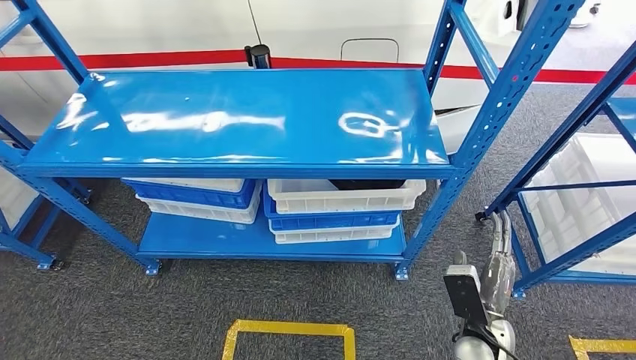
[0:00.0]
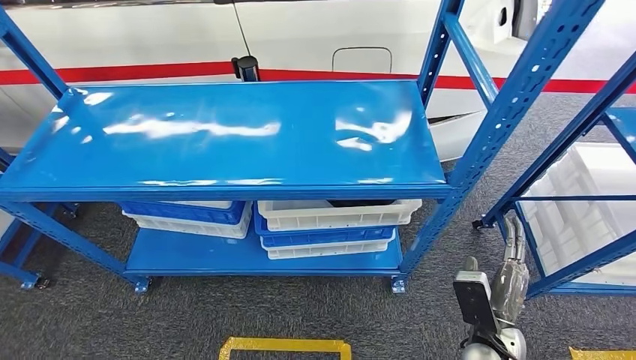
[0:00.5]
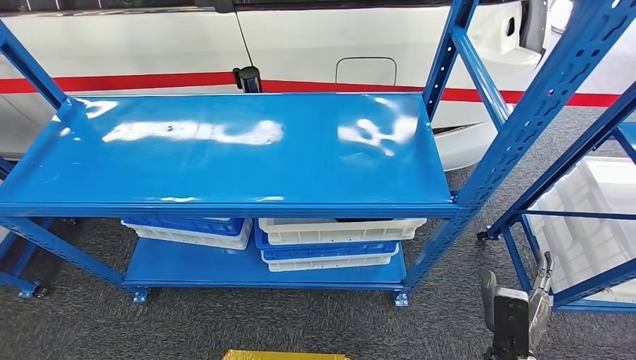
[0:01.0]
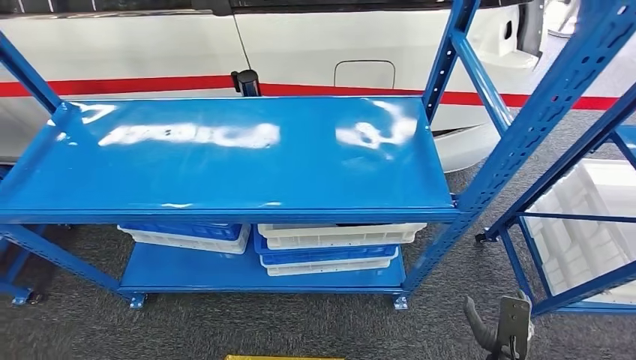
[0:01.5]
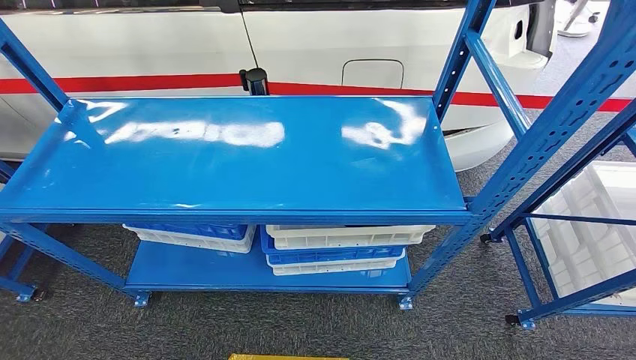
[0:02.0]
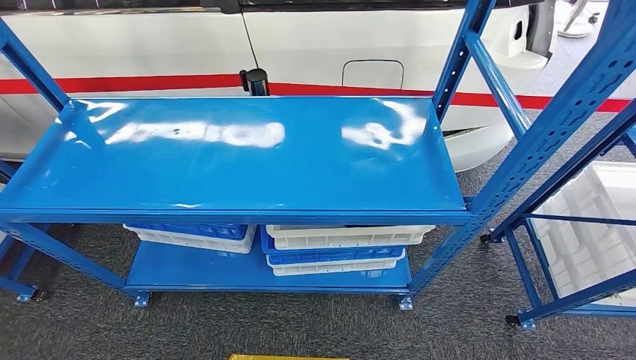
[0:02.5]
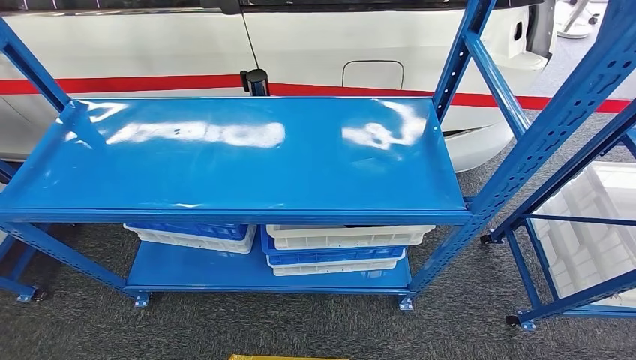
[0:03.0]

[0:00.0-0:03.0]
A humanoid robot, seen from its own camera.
Step, 0:00.0 to 0:03.0: Move to the initial position of the shelf.
